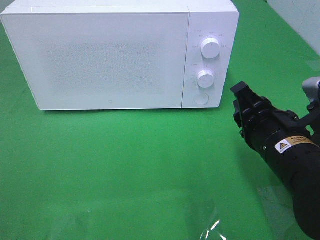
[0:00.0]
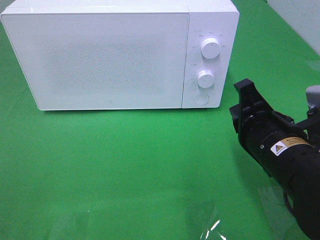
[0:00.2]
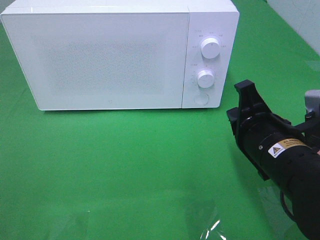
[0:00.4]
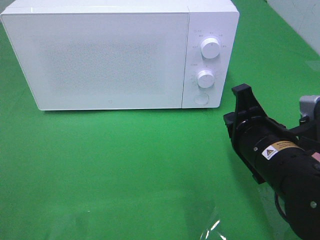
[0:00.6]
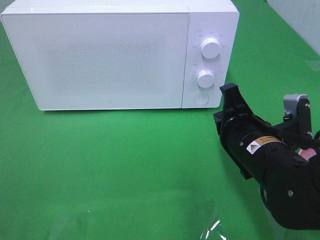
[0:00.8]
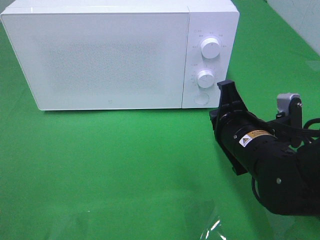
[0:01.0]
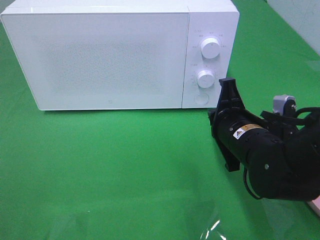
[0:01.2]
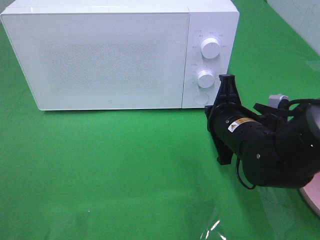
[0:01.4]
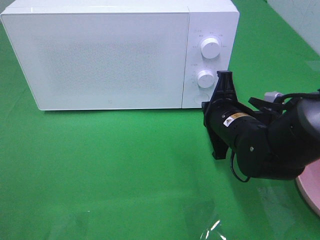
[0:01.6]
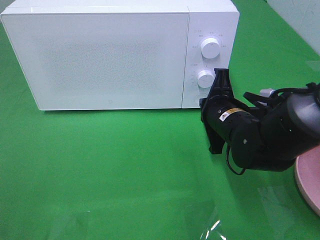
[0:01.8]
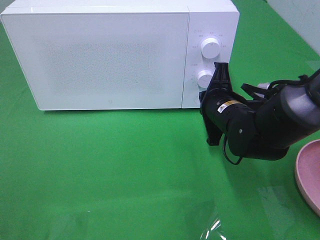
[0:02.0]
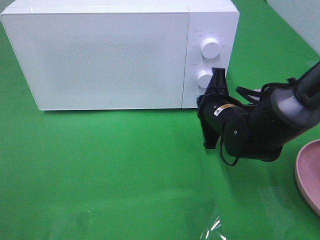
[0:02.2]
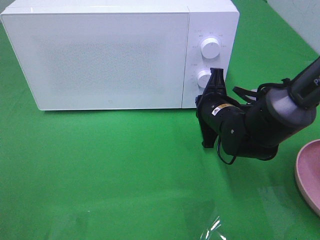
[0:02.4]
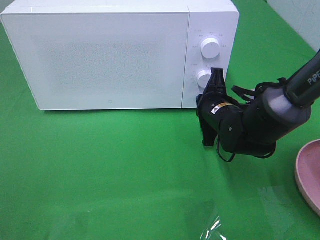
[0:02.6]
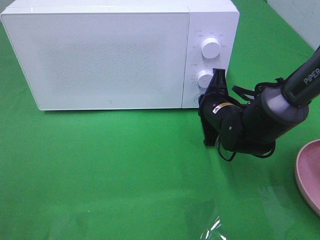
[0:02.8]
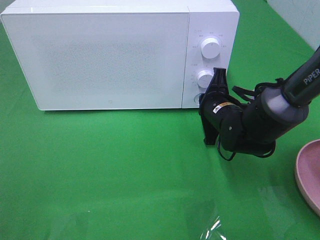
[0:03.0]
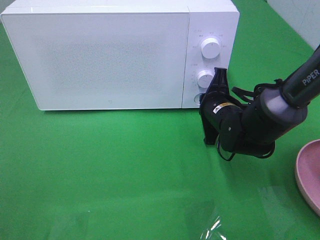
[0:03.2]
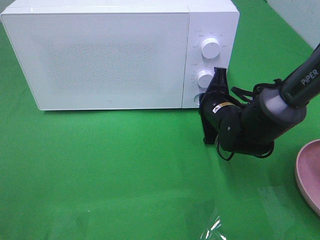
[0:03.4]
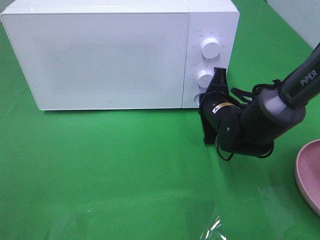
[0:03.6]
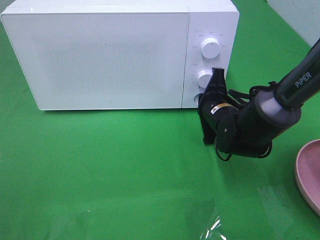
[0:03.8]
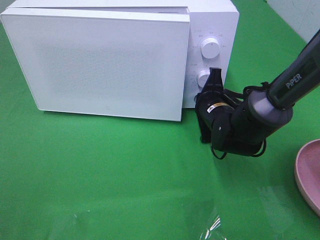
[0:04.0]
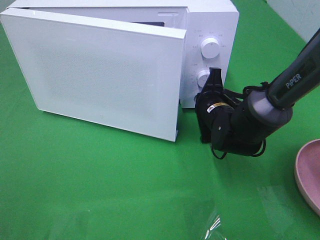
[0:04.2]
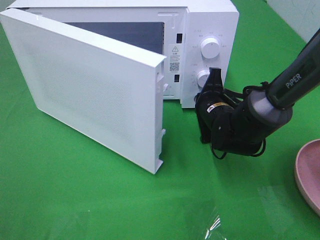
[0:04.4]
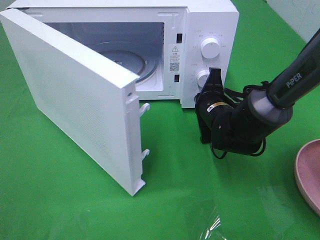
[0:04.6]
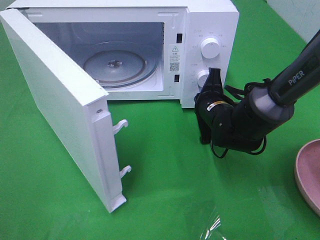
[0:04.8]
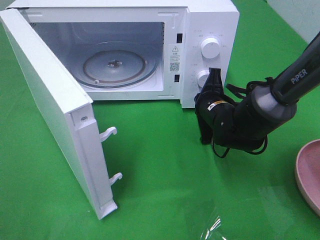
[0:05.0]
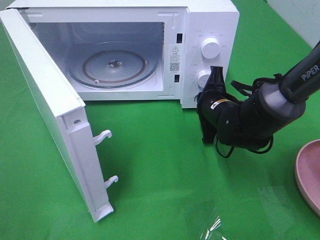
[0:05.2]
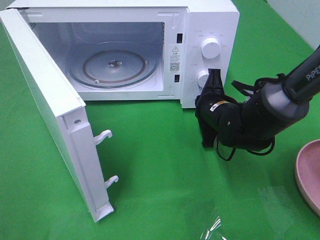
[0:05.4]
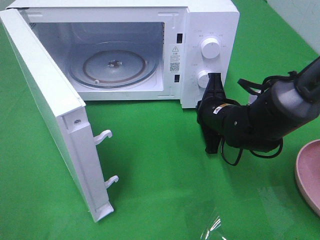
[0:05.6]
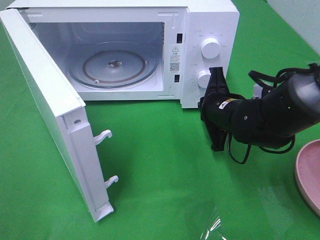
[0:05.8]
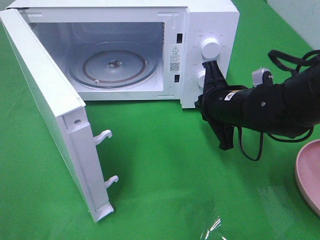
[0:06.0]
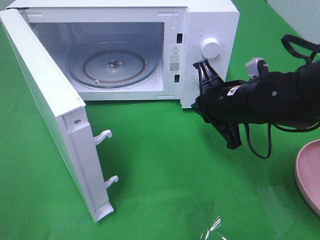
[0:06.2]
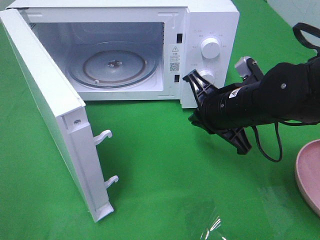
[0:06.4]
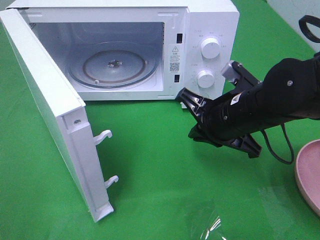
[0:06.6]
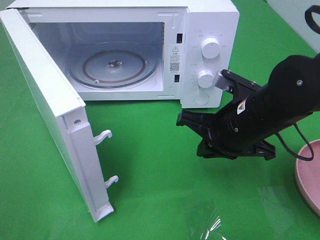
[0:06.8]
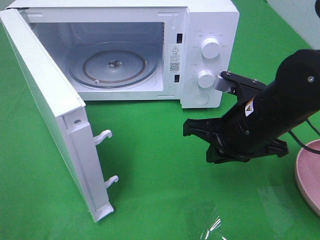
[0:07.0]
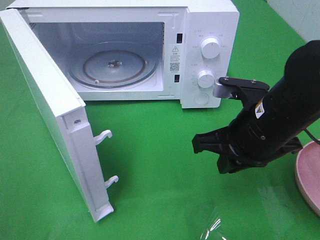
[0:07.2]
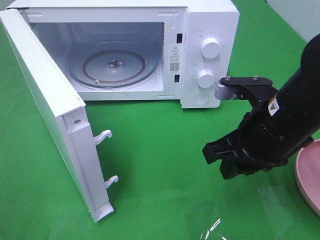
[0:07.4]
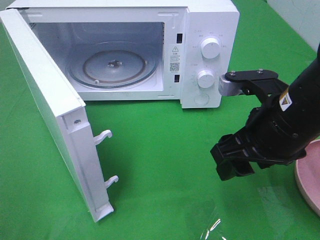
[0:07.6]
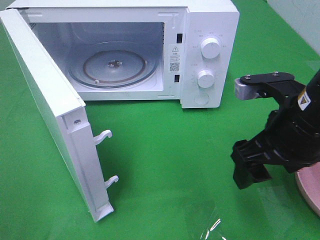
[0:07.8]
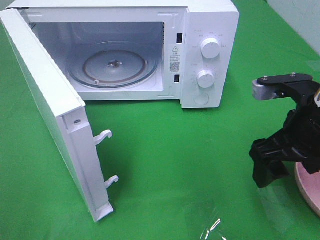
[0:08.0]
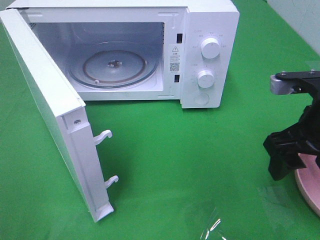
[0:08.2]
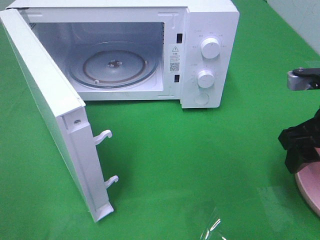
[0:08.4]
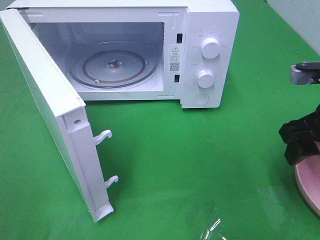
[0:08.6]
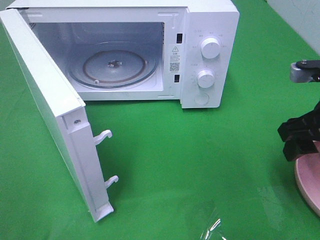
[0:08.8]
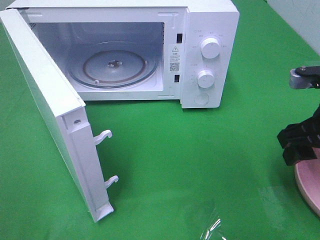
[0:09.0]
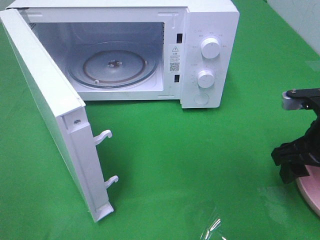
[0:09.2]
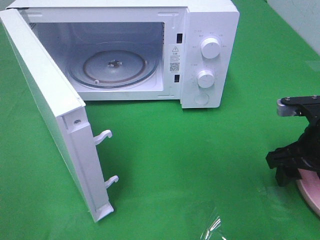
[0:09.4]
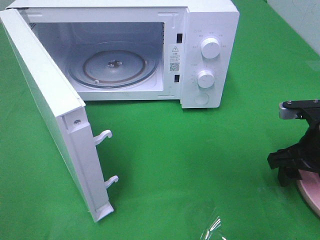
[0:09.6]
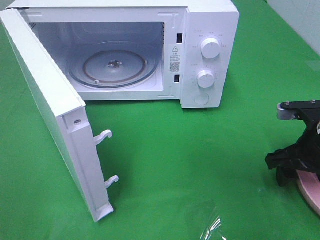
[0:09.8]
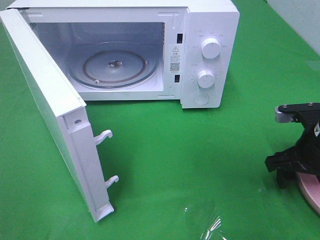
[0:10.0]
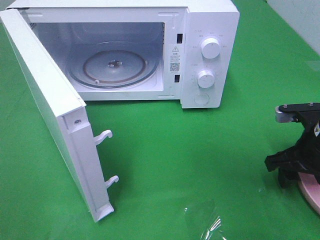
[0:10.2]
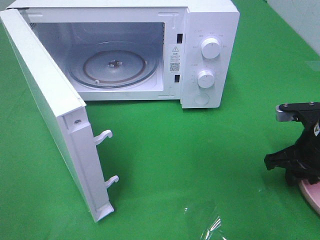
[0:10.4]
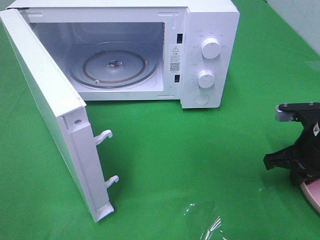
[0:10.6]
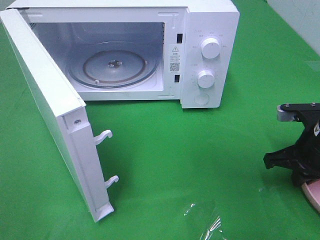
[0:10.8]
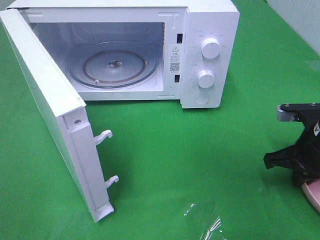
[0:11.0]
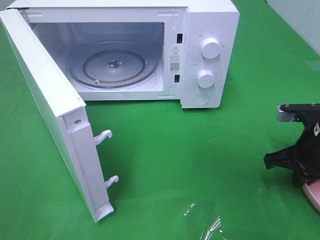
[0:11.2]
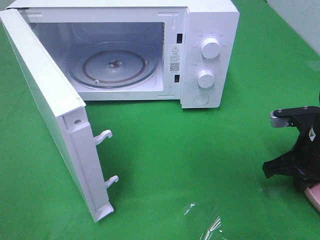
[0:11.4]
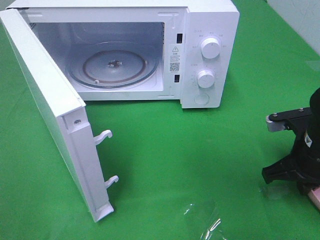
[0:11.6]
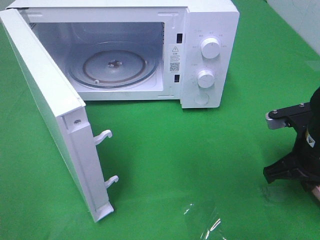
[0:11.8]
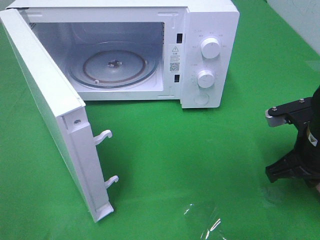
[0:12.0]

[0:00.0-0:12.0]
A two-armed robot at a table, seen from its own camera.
Task of the whole recording: Heat the burger.
Step, 0:00.0 to 0:05.8: Right hand: press the switch.
Step, 0:06.0 to 0:11.8: Right hand: grab the plate with the hamburger.
0:00.0 to 0:01.6: The right gripper shifts about 10 cm forward, and closes its fingers.
0:01.6 to 0:03.0: The right gripper shifts roughly 5 cm forward.
0:04.4 to 0:06.0: The right gripper shifts about 10 cm upward and backward.
0:06.0 to 0:07.6: The right gripper travels backward and upward by approximately 10 cm, and opens its fingers.
0:07.6 to 0:09.0: The right gripper heads to the right, covering about 10 cm.
0:09.0 to 0:10.4: The right gripper goes about 10 cm downward.
0:10.4 to 0:12.0: The right gripper closes.

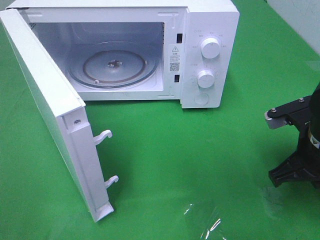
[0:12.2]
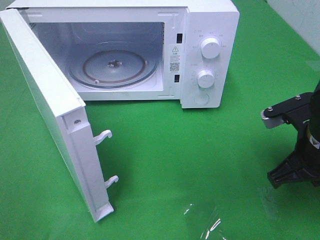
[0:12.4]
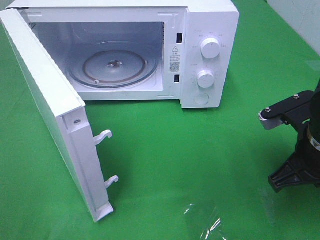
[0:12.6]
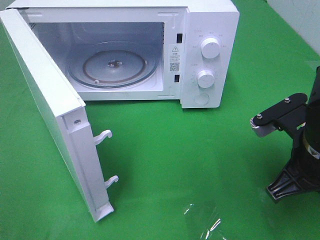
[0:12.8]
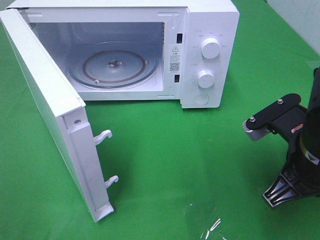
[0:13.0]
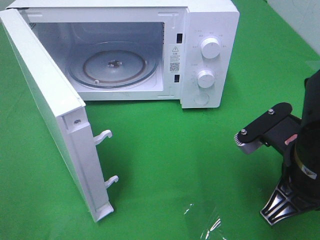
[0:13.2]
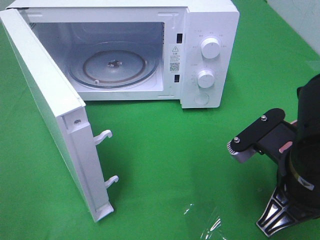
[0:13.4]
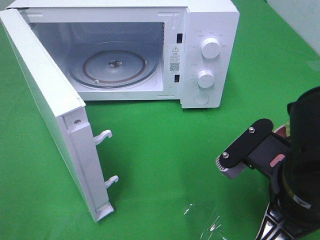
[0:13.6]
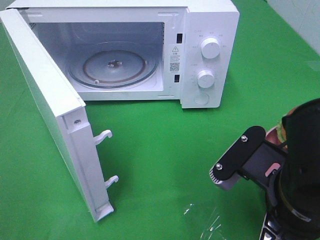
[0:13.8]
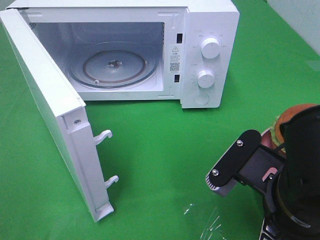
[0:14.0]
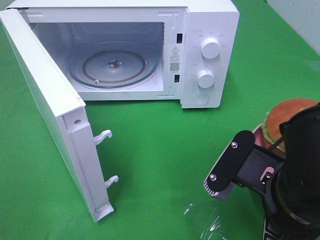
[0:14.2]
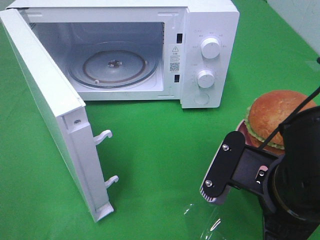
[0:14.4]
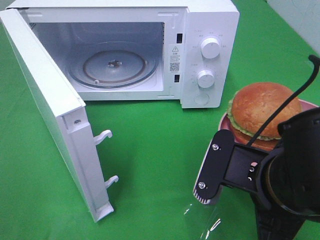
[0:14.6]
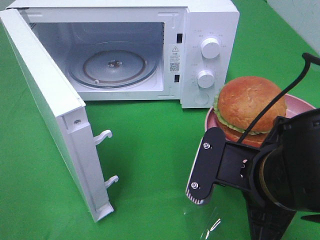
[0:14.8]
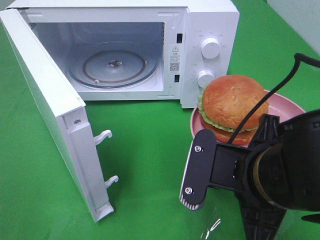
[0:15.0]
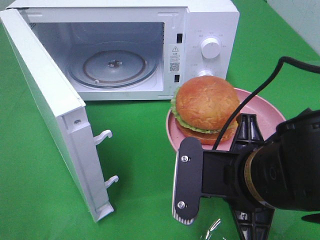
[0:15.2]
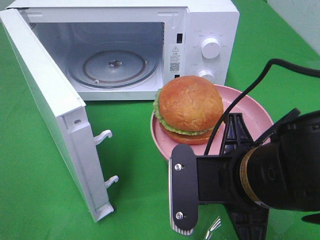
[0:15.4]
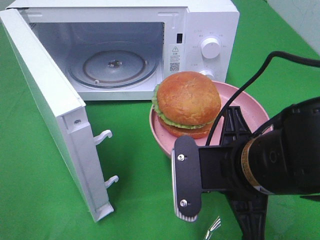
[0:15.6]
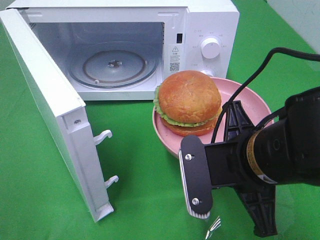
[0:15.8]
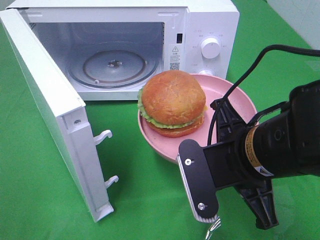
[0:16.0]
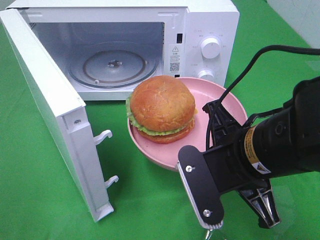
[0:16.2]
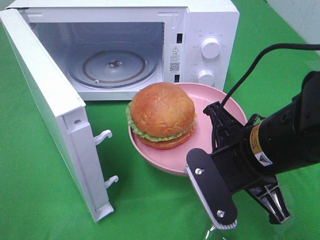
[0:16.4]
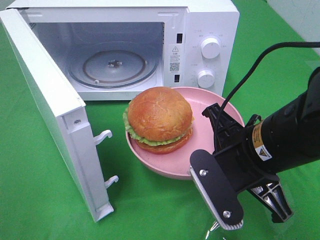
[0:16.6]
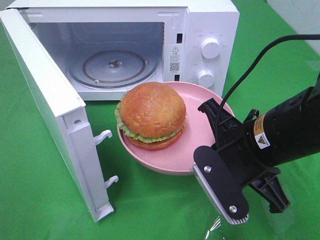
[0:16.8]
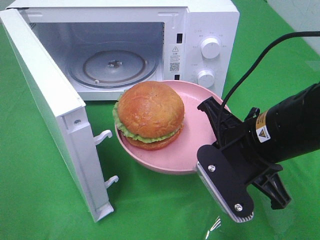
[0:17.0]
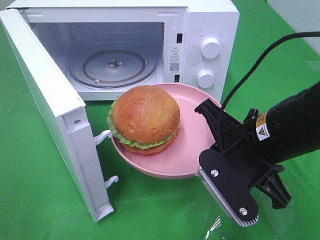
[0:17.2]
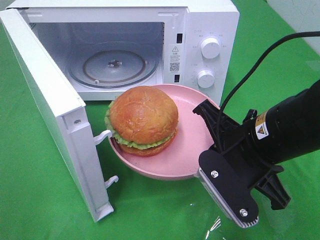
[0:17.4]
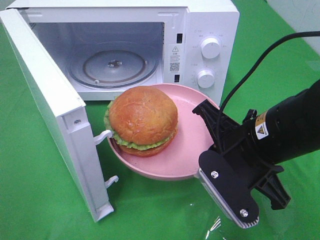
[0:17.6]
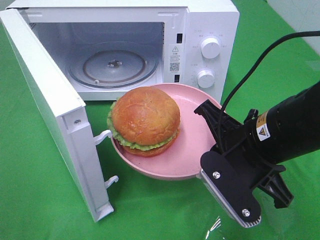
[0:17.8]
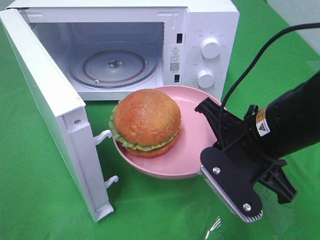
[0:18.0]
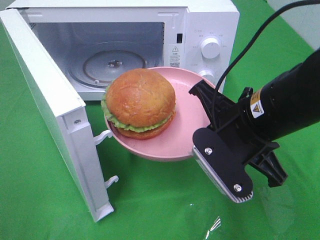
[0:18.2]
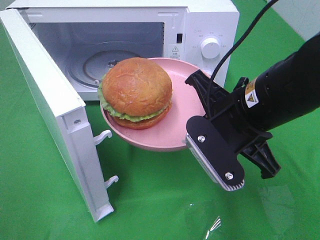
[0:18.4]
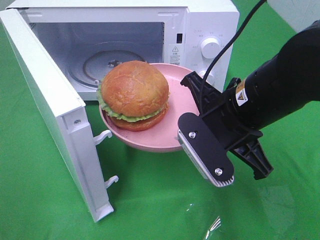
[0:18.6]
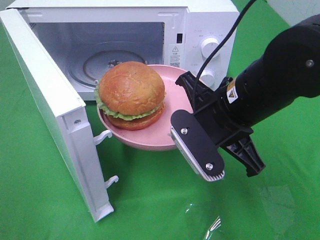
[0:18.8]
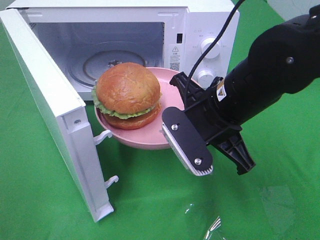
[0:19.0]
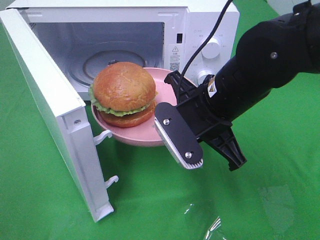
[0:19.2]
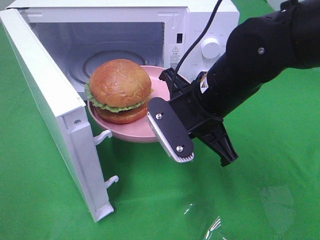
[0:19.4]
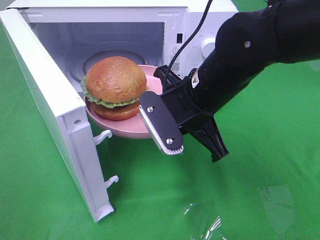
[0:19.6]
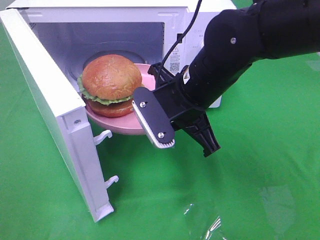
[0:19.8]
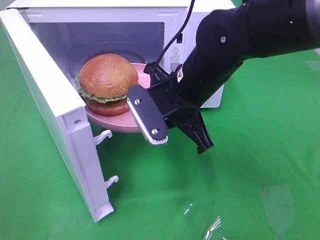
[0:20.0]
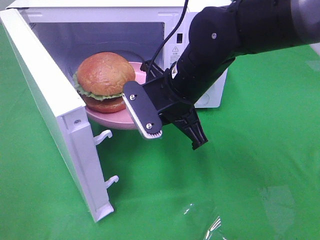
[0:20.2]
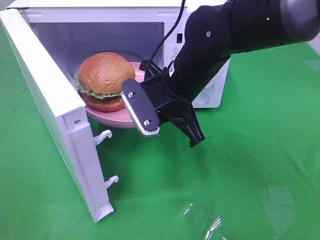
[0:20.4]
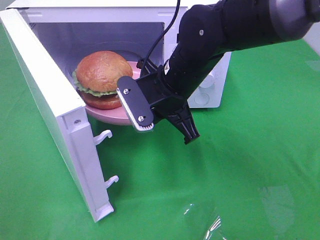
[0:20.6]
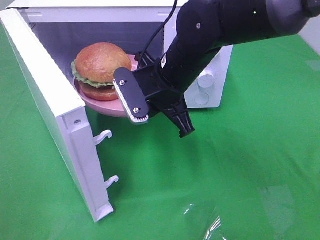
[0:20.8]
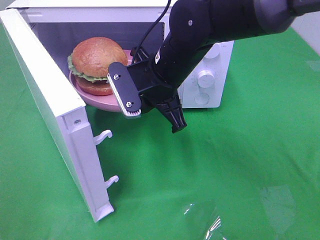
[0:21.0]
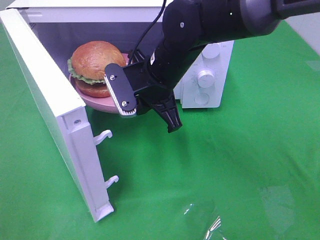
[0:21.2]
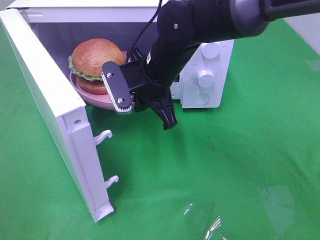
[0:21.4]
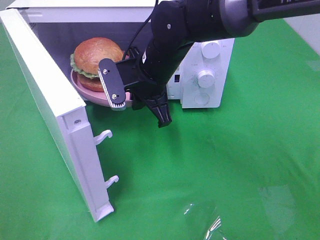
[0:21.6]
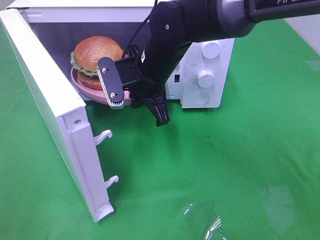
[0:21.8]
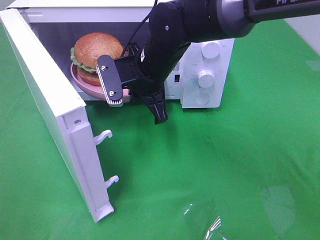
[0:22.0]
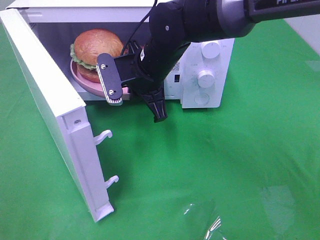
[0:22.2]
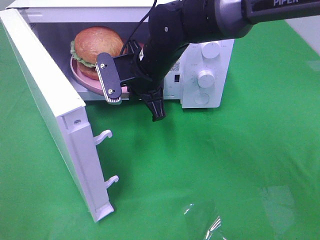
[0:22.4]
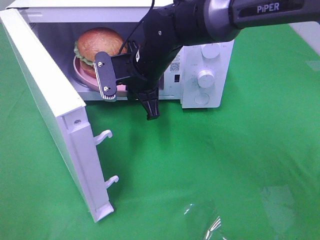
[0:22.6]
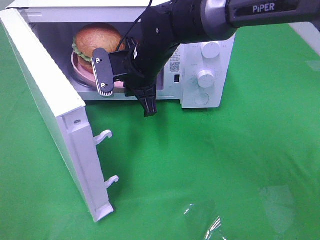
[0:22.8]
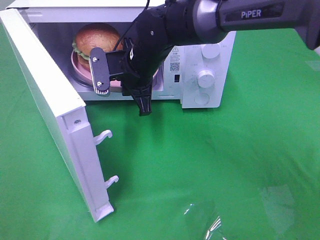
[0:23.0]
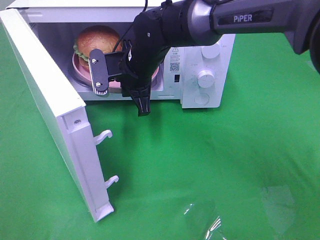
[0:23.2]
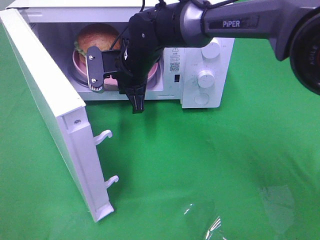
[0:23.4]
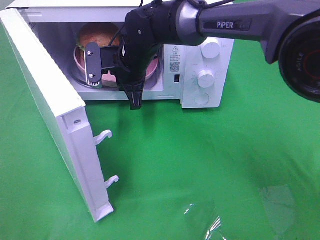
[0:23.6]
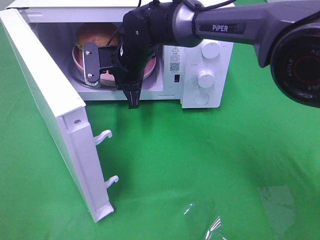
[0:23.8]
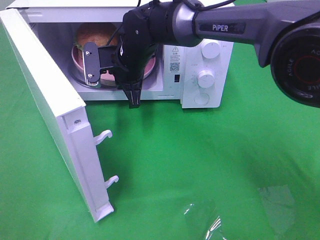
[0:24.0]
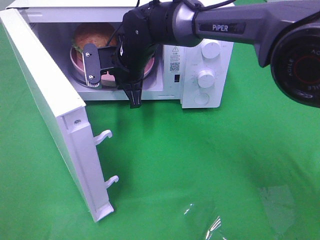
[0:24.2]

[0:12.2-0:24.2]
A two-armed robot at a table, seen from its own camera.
Task of the whole recording: Heat the burger.
0:12.2 to 0:13.8: The right gripper shifts roughly 15 cm backward and to the left.
0:15.2 to 0:16.6: The right gripper shifts by roughly 5 cm.
0:18.2 to 0:19.8: The right gripper shifts some 10 cm forward and to the left.
0:19.8 to 0:21.2: The right gripper goes roughly 5 cm forward.
0:21.2 to 0:22.6: The right gripper shifts by some 5 cm.
0:22.6 to 0:24.2: The right gripper moves roughly 5 cm.
